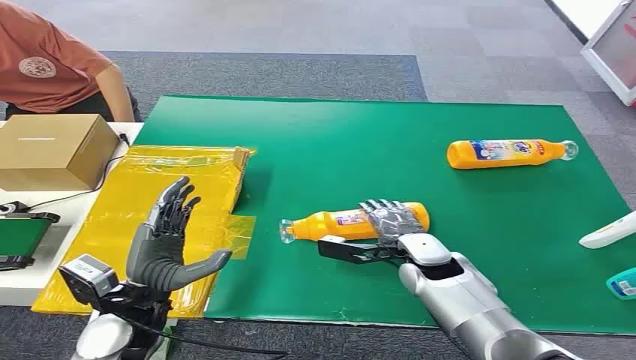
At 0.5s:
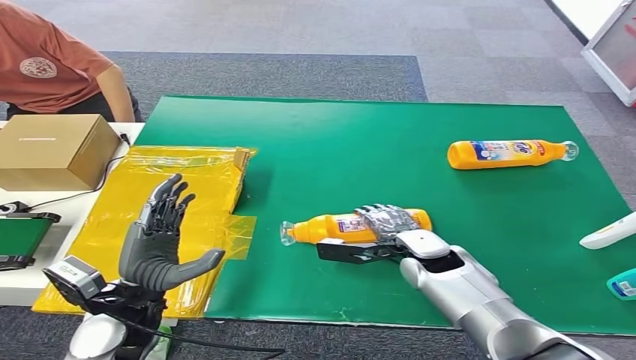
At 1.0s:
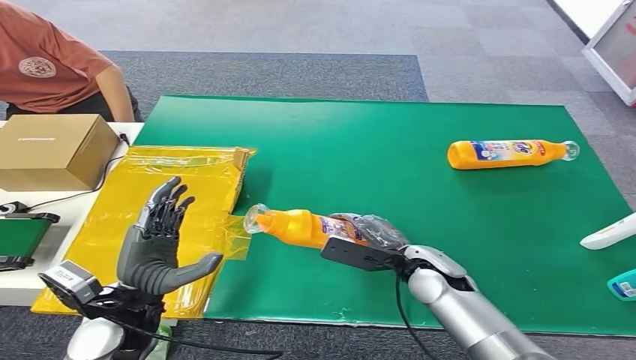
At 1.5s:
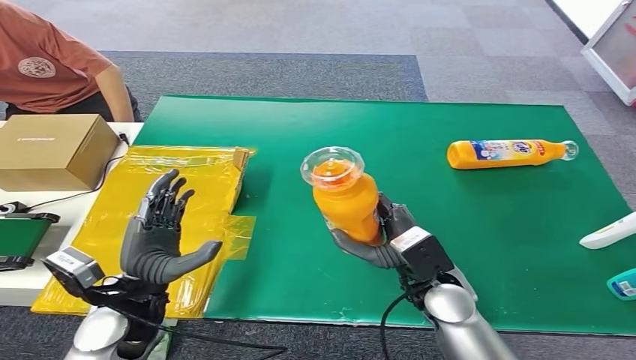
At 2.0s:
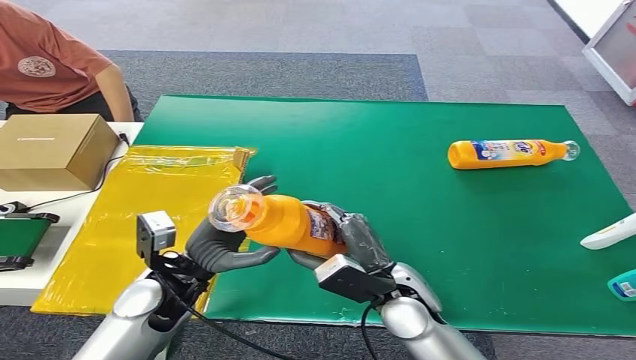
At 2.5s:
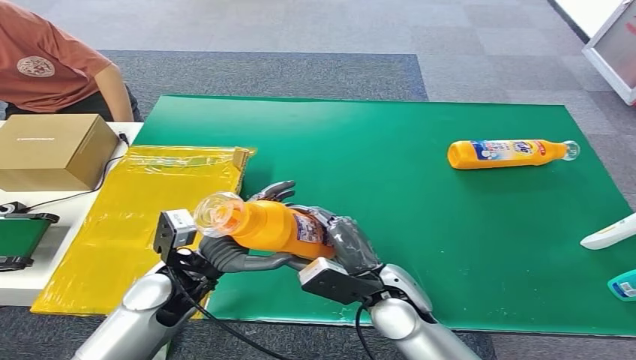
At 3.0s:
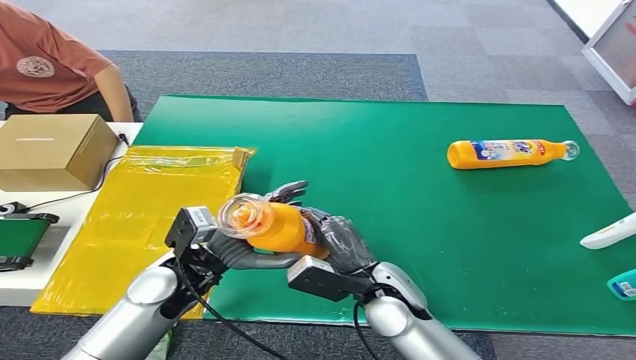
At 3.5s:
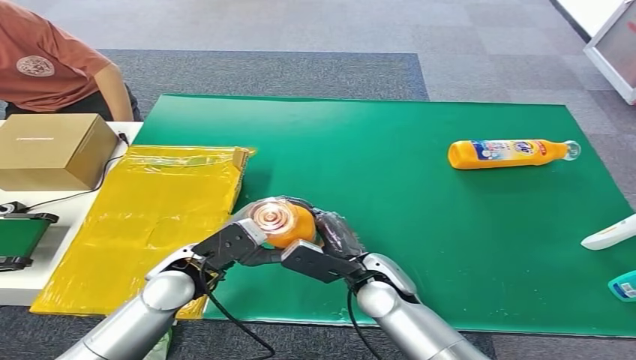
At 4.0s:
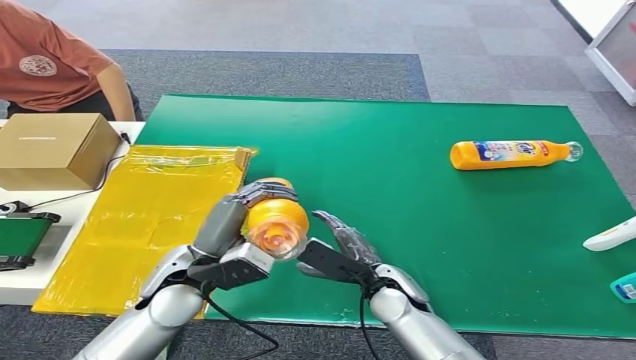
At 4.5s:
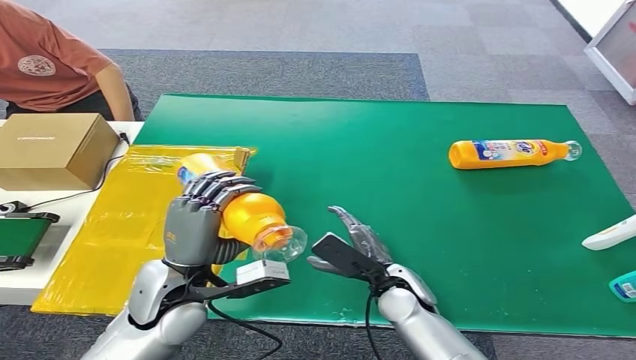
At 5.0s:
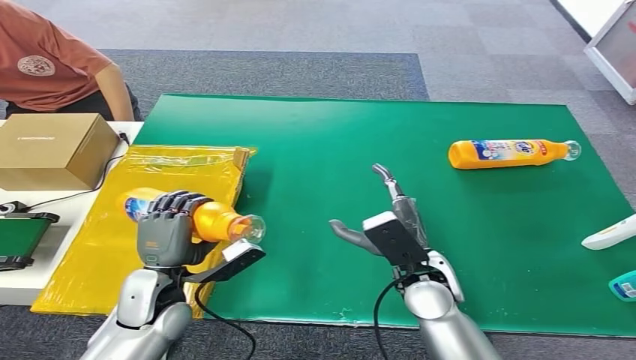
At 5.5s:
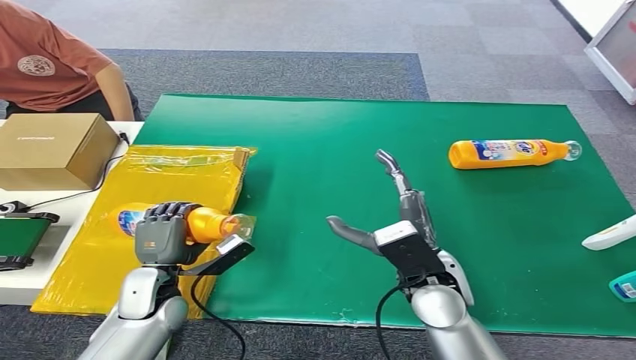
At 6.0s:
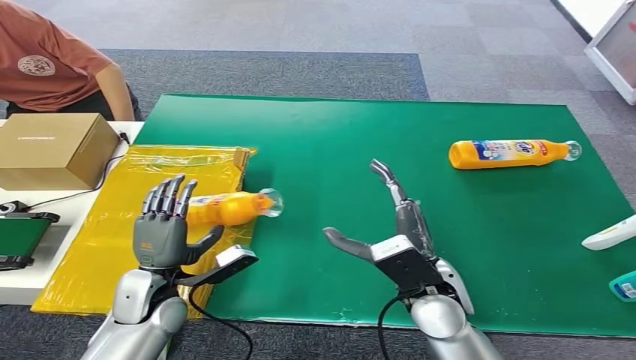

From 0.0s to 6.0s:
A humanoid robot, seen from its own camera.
Step, from 0.0s to 1.5s: Pick up the bottle from the table.
Step, from 2.0s to 6.0s: Turn the bottle to the front side.
From 2.0s to 4.0s: The right hand moves downward, roughly 5 cm.
From 4.0s to 6.0s: The right hand is displaced upward by approximately 10 cm. Meanwhile the left hand is displaced downward and to the left by about 10 cm.

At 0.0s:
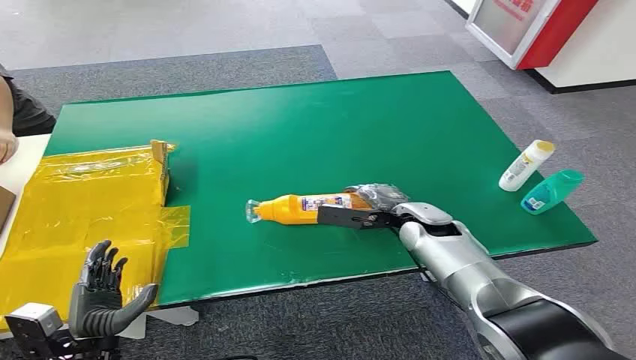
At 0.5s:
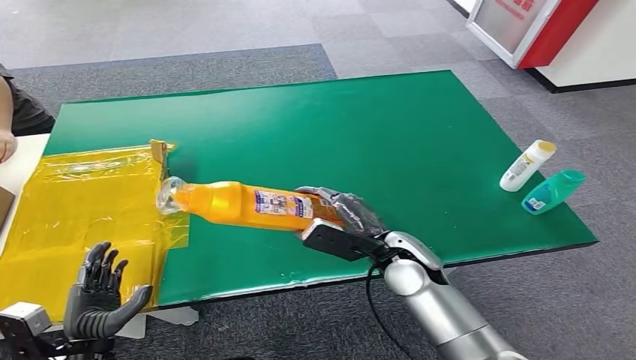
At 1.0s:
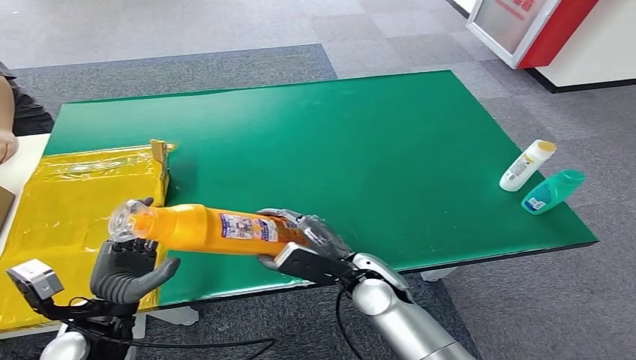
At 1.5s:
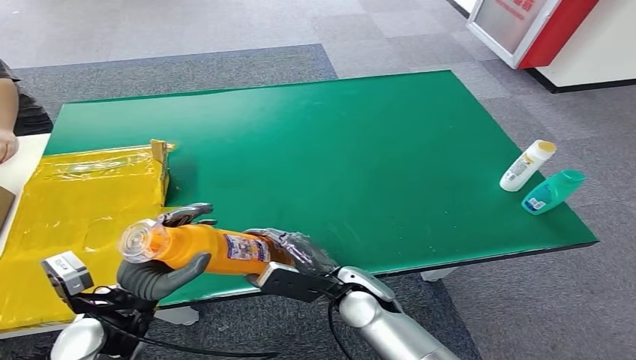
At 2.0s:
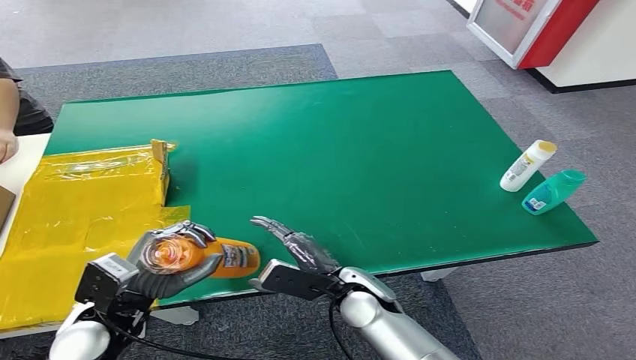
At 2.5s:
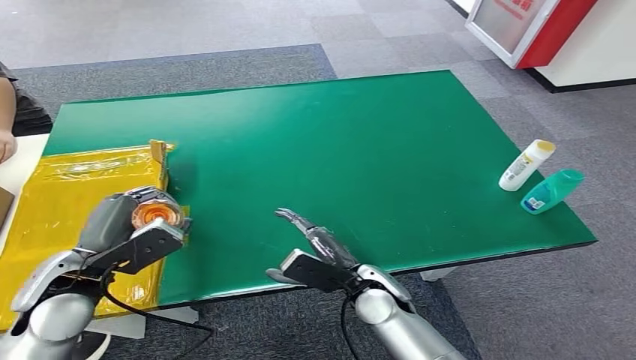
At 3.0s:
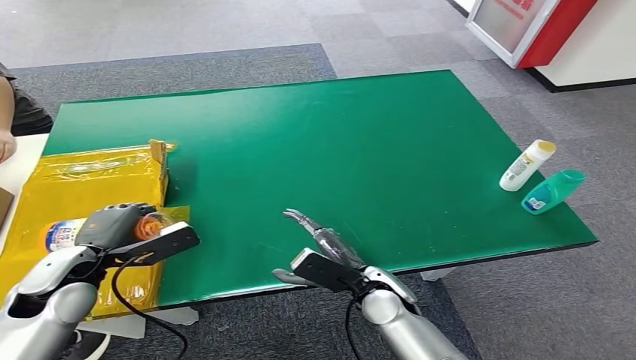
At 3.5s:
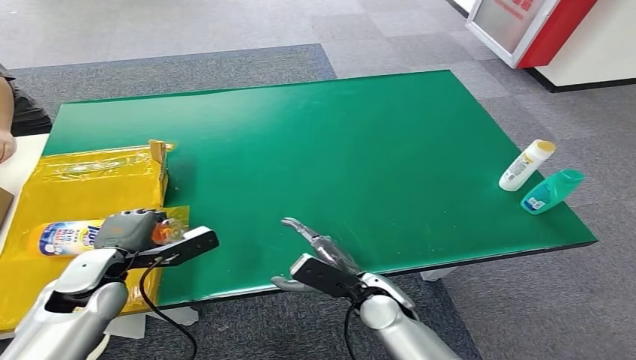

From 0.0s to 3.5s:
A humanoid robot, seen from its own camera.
Step, from 0.0s to 0.5s: Pick up the bottle from the table.
Step, from 1.0s to 3.5s: Turn the bottle to the front side.
From 2.0s to 3.5s: The left hand goes about 10 cm forward.
